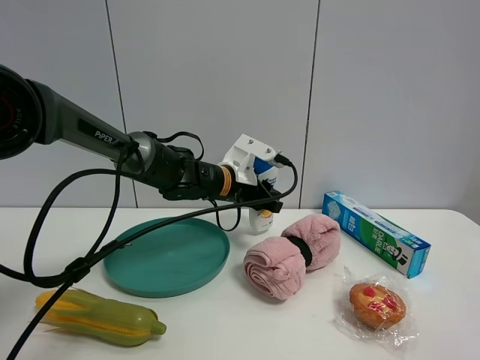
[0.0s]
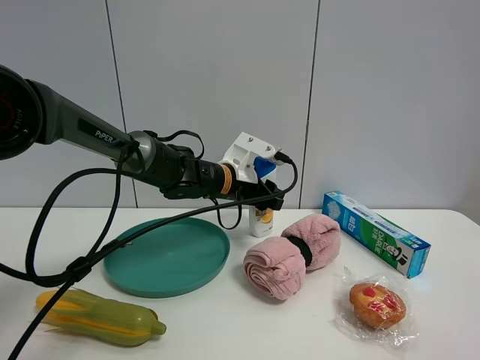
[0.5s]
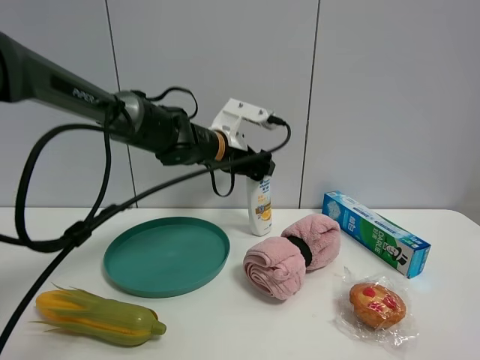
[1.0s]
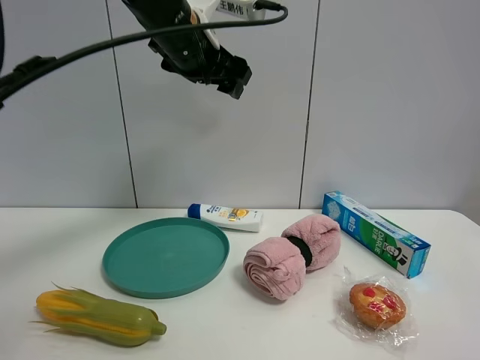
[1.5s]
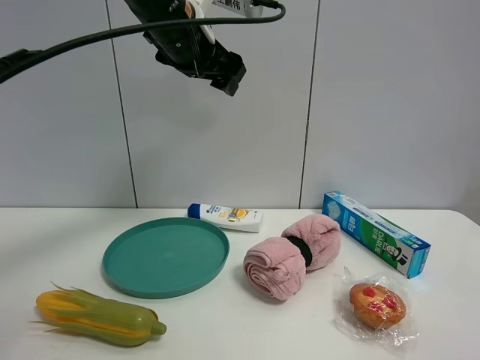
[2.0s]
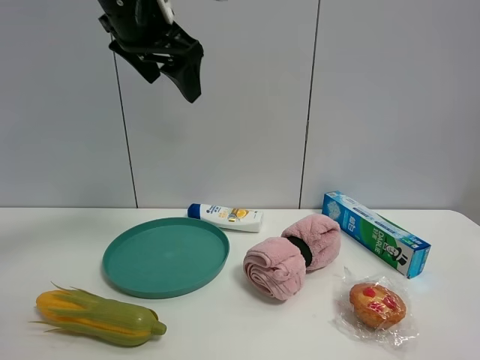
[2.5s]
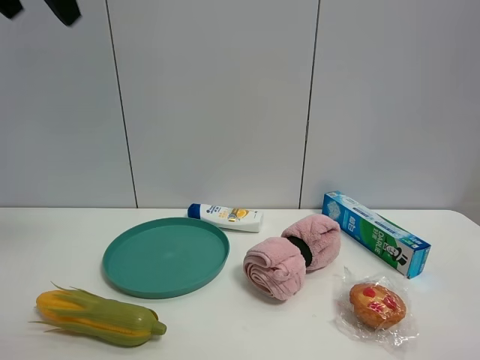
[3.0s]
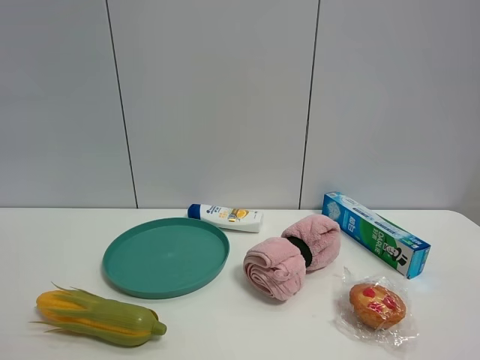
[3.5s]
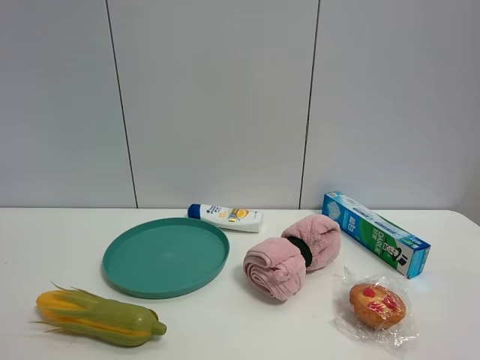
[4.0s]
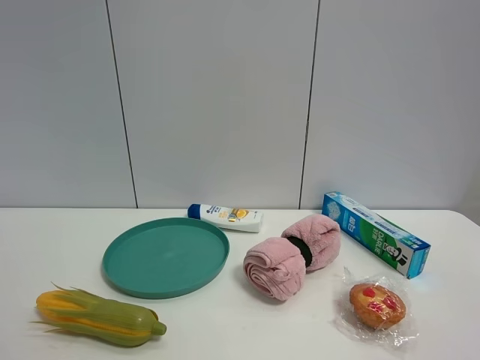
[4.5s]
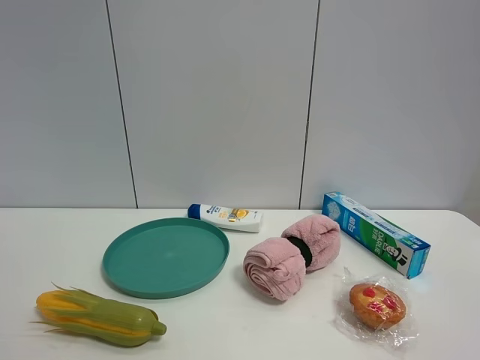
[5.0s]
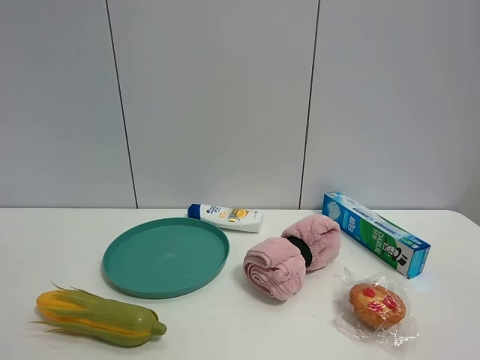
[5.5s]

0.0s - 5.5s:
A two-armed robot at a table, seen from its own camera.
Task of the whole recording: the gripper move the object.
0.0s - 2.0s: The left gripper is displaced upward by roughly 25 cm, and opens.
2.0s - 3.5s: The left gripper moves backward and to the left, some 40 cm.

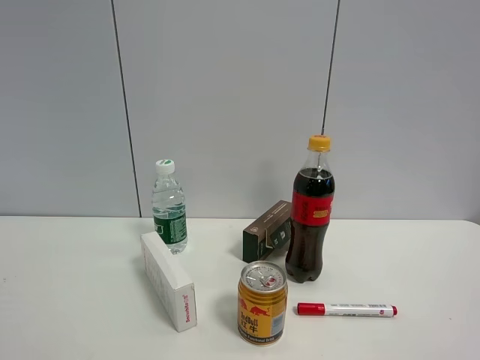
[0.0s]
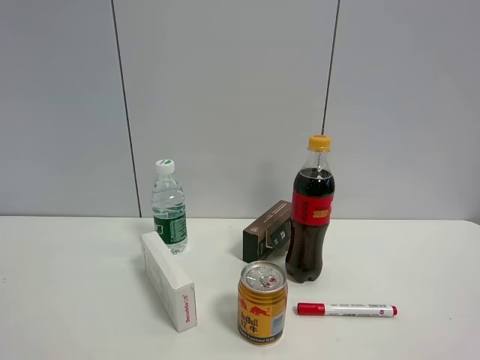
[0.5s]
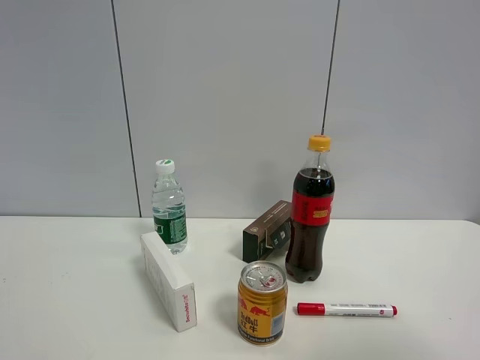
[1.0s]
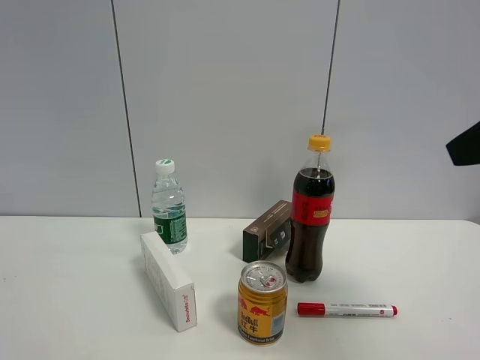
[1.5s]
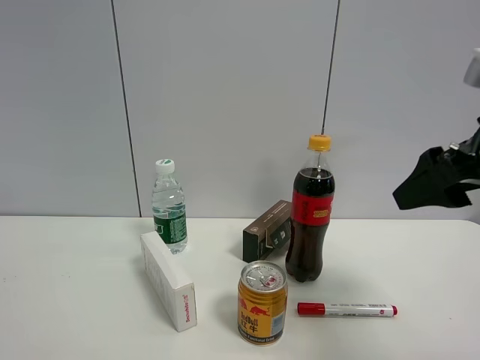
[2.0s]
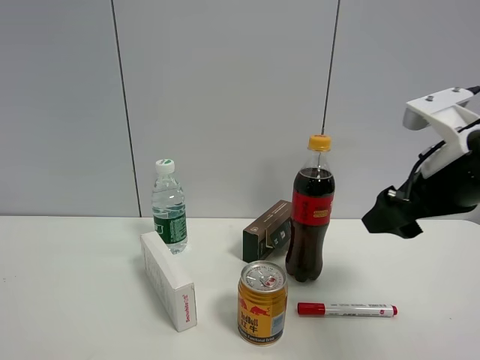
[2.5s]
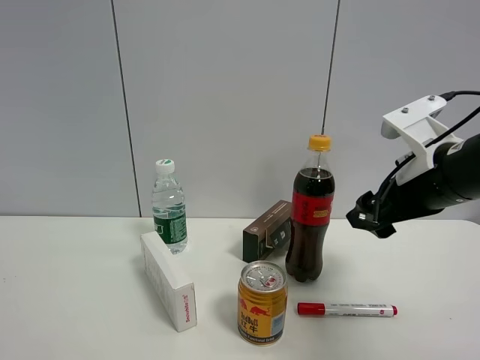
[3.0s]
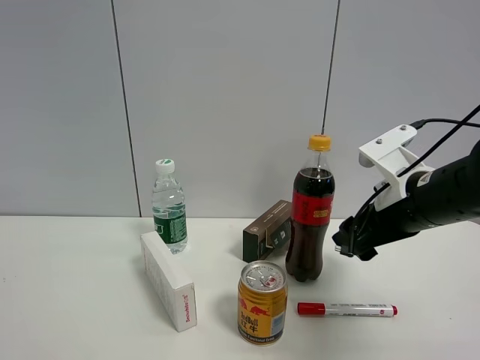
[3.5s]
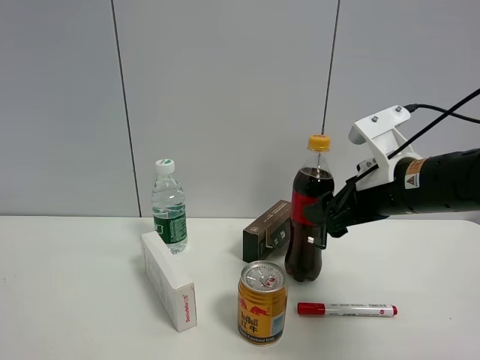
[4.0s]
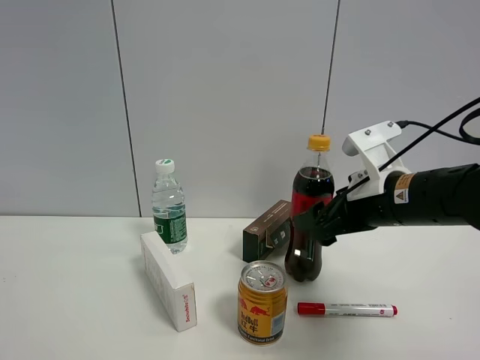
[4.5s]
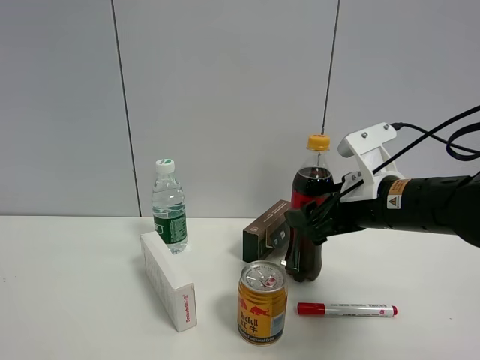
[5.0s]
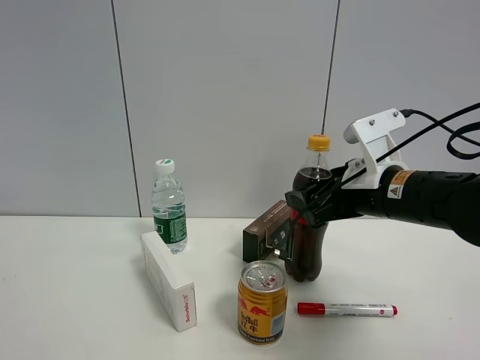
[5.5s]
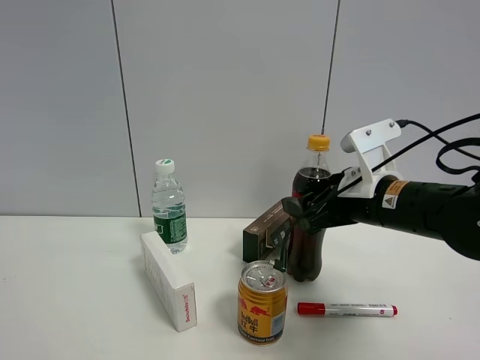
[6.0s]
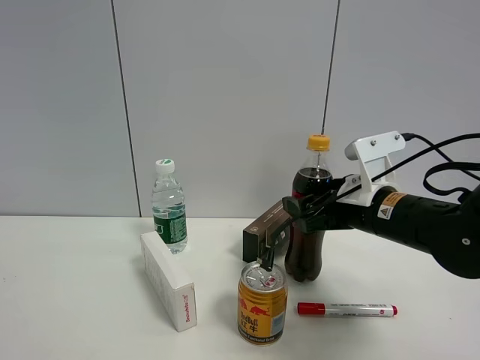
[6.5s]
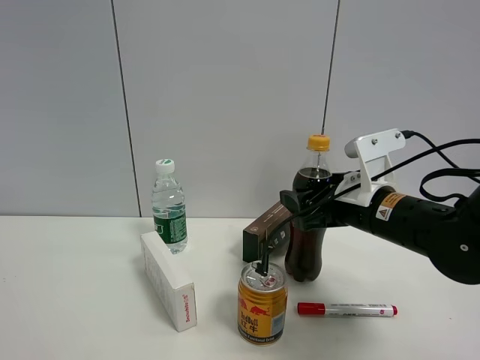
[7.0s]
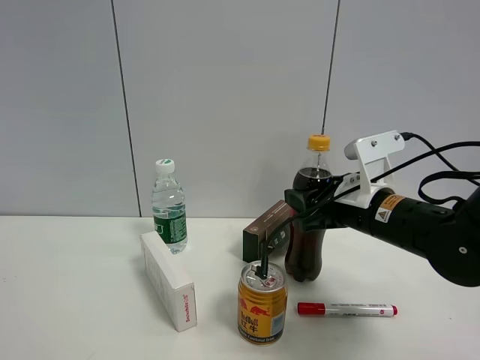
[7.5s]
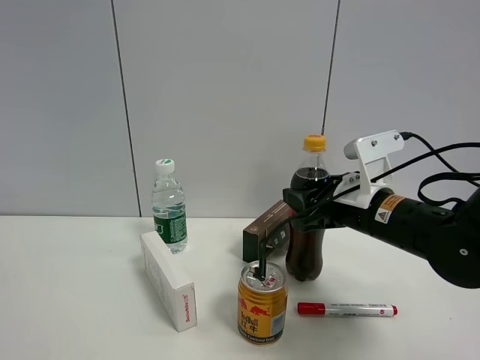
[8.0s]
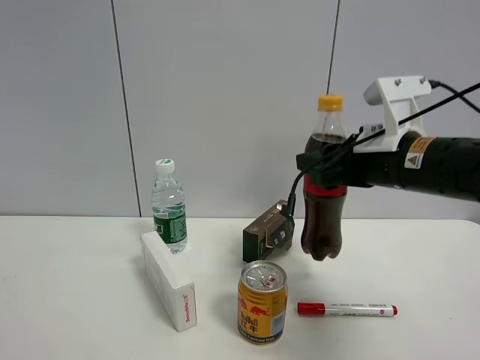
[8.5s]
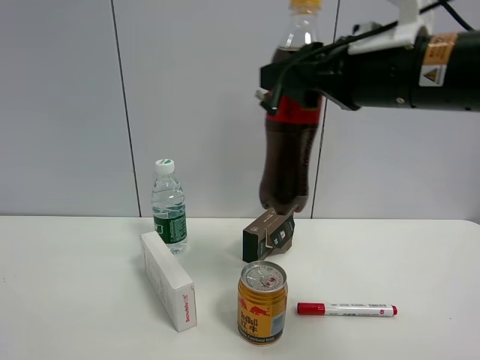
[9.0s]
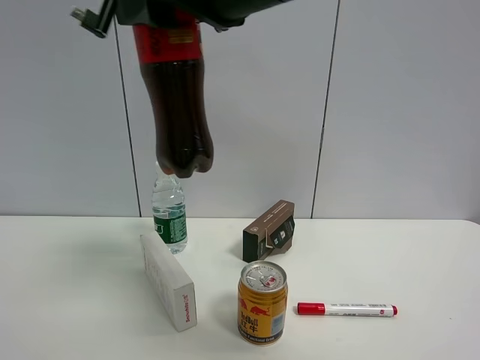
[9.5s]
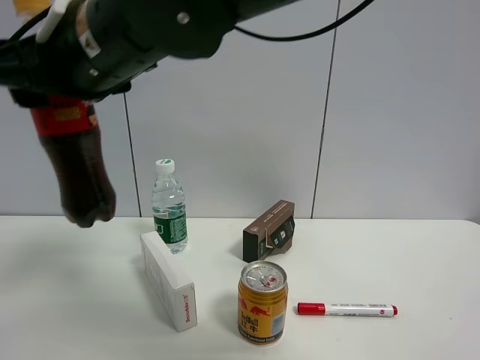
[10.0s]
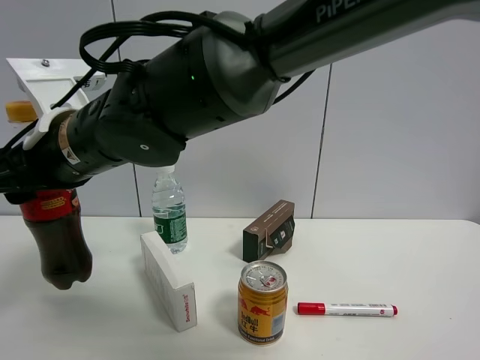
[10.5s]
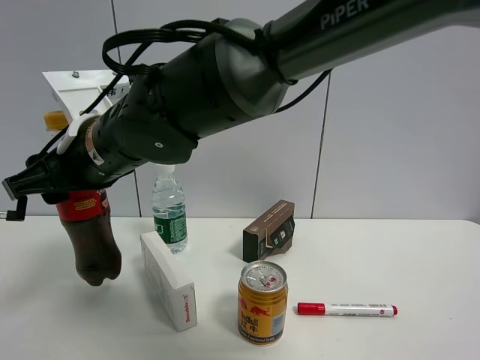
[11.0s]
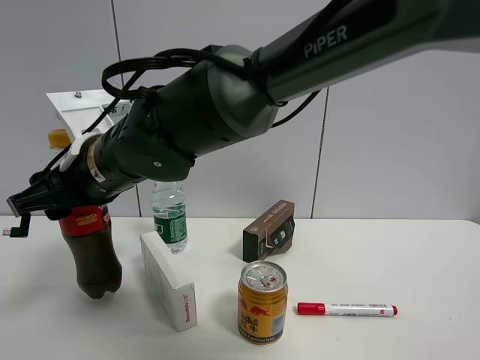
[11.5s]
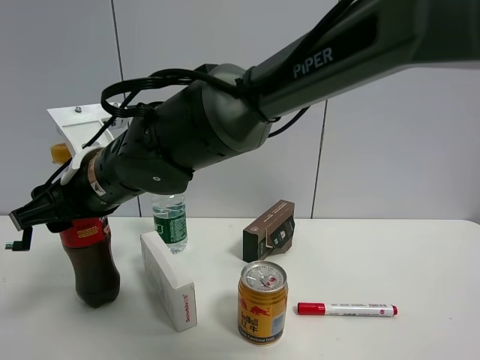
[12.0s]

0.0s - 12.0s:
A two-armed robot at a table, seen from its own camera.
Task of the whole recording: the gripper move the object.
Step, 0.0s - 7.5s: Grasp the coke with the right gripper.
0.0s - 2.0s: The right gripper heads forward, covering some 25 cm.
2.0s - 4.0s: The right gripper goes roughly 15 cm downward, forward and to the left.
4.0s - 6.0s: The grippers make only small movements.
6.0s - 8.0s: The right gripper closes its fingers.
8.0s - 10.0s: The right gripper moves to the left and upward, approximately 35 cm.
10.0s - 12.0s: The right gripper travels downward by some 10 cm.

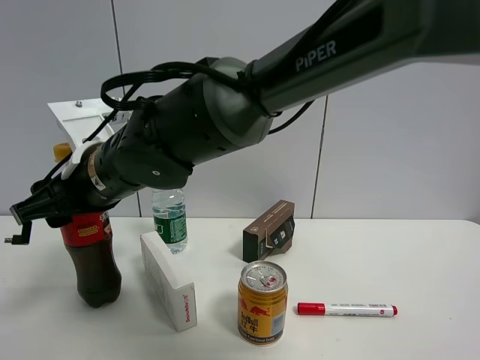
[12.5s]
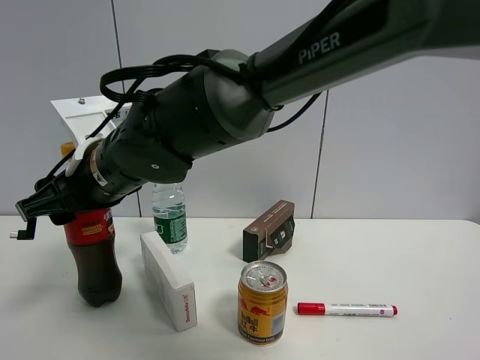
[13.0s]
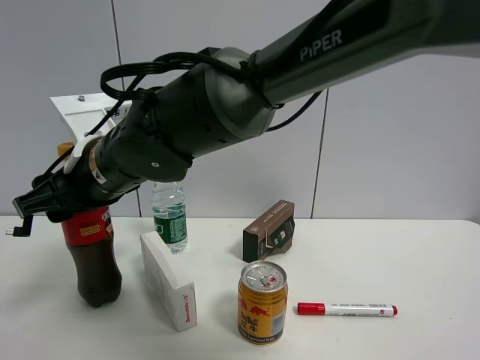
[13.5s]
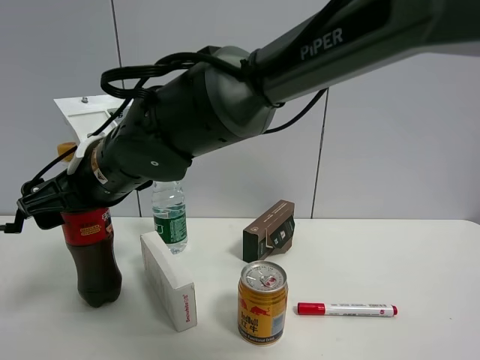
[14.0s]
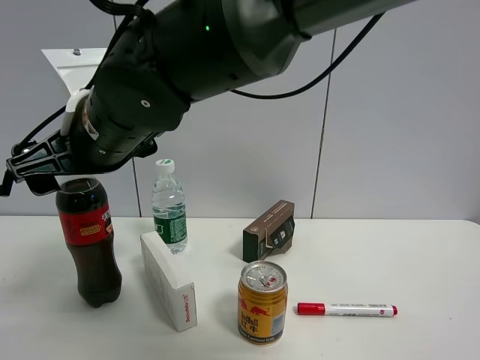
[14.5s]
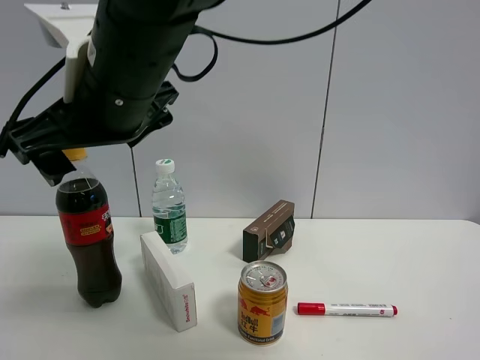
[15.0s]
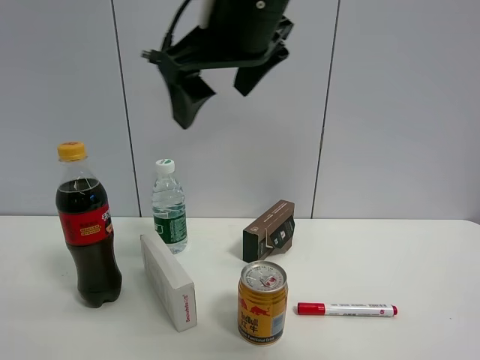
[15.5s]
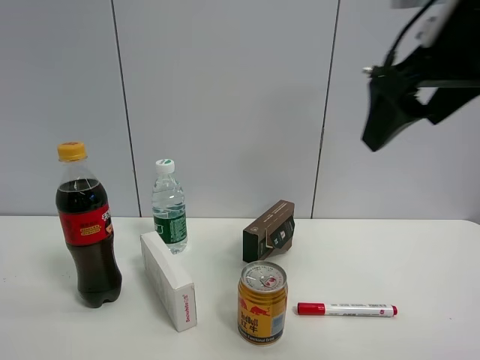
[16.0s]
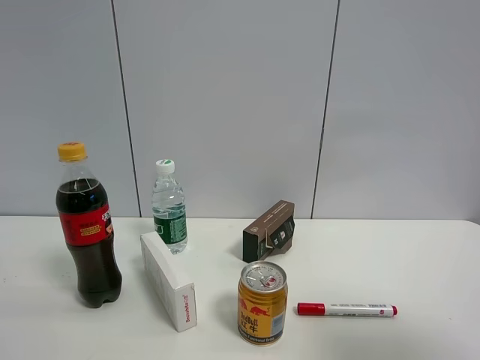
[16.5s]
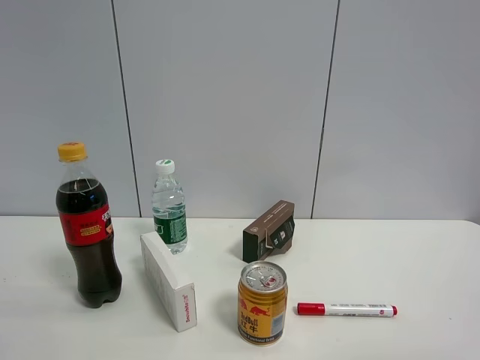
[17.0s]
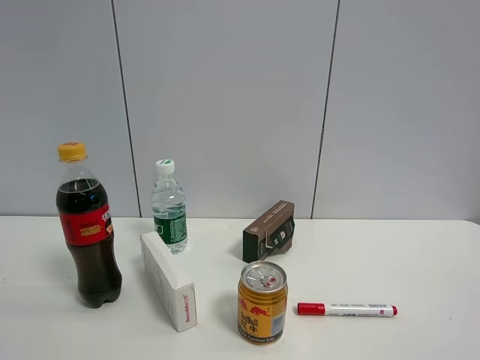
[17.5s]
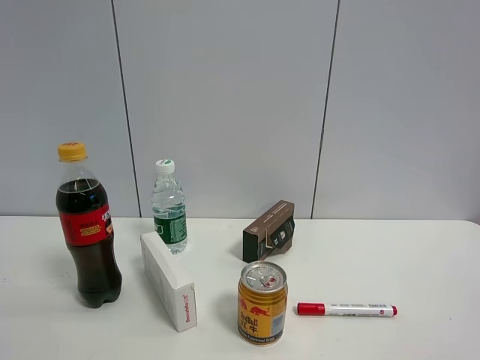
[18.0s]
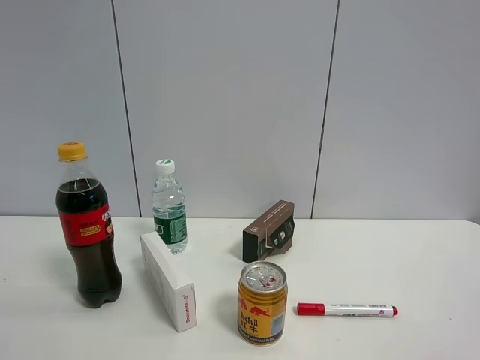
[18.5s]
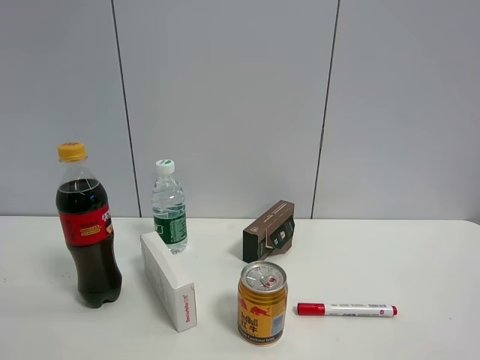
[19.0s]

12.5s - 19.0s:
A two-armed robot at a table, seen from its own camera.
Task of the whole recording: the gripper move the object.
Step, 12.5s - 15.0s: Place the coke on the table with the right gripper.
12.5s - 14.5s: The right gripper travels upward by roughly 5 cm, and opens.
14.5s - 17.0s: The right gripper travels to the right and backward by roughly 50 cm.

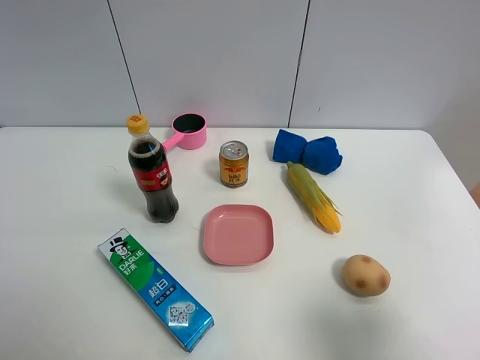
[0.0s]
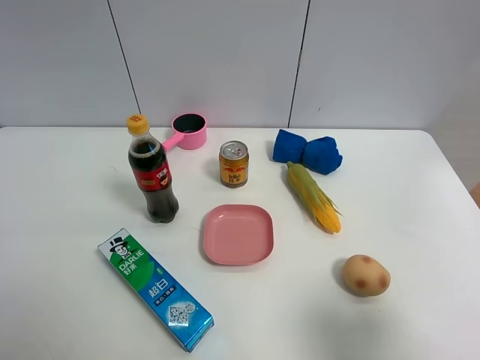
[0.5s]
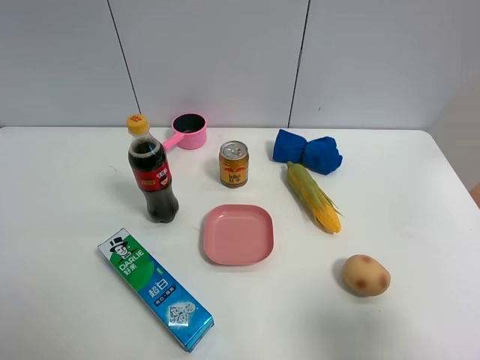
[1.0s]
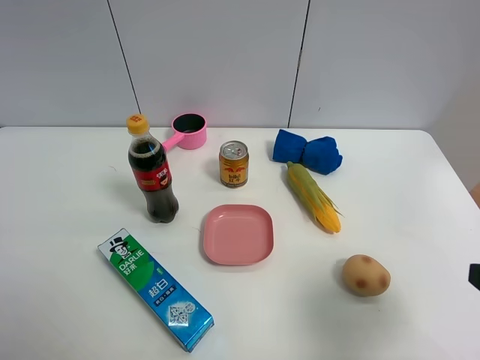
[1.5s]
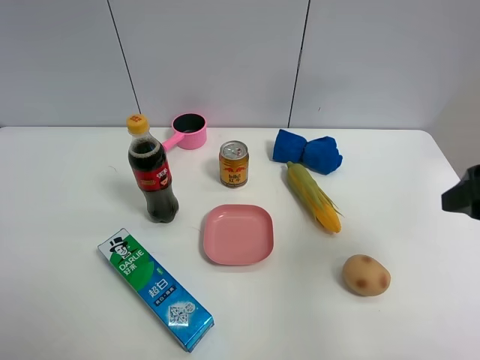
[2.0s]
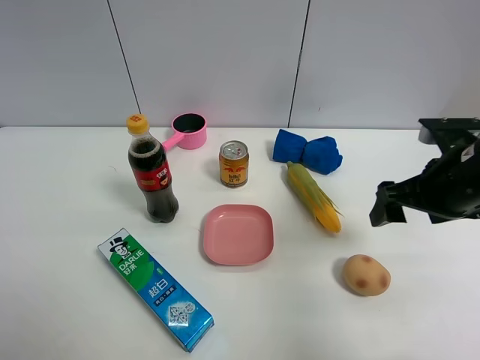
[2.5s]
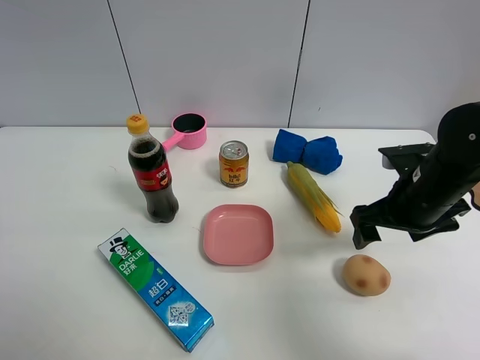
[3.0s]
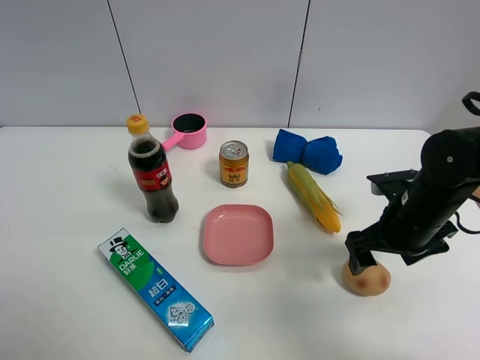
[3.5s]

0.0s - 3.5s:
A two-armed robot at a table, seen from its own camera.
Task of the whole recording: the gripper move the object.
0.0s - 2.0s: The right gripper moves forward, some 15 cm.
2.0s - 3.5s: The right gripper heads downward, forward and to the left, covering some 15 cm.
